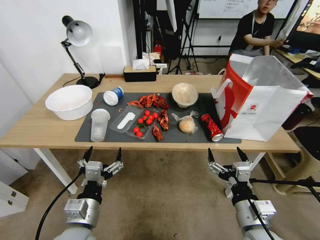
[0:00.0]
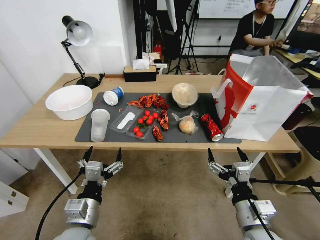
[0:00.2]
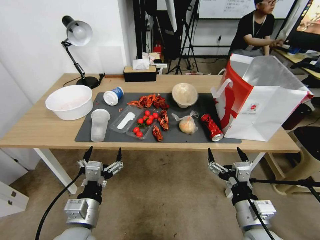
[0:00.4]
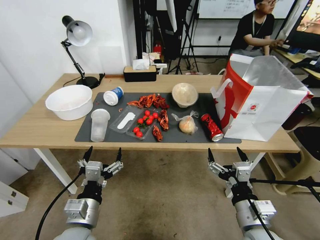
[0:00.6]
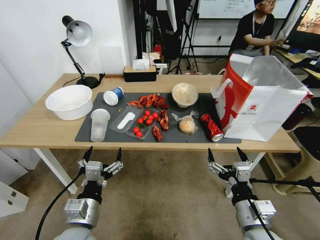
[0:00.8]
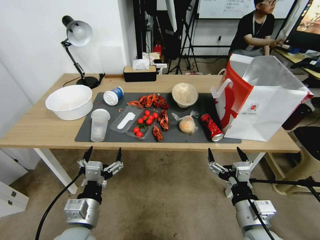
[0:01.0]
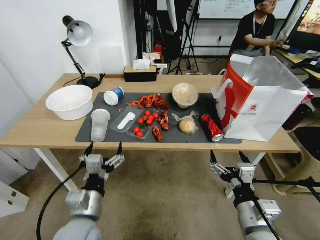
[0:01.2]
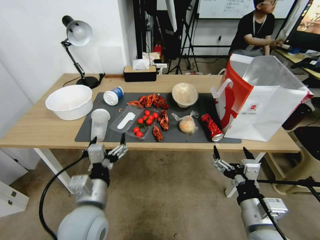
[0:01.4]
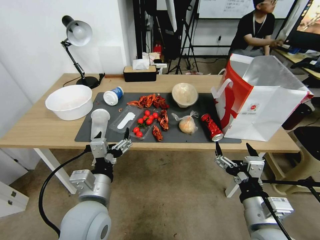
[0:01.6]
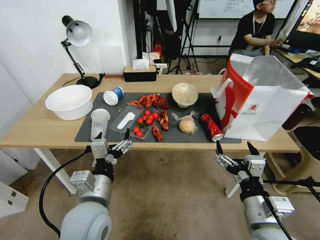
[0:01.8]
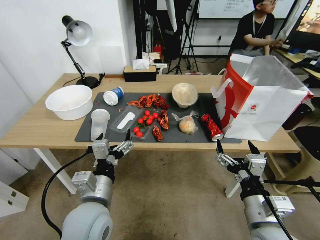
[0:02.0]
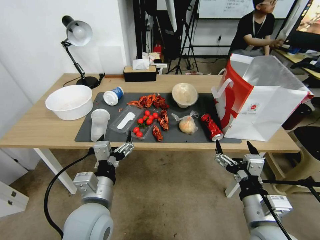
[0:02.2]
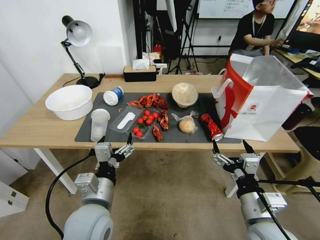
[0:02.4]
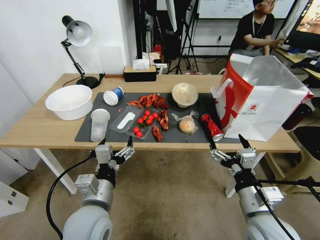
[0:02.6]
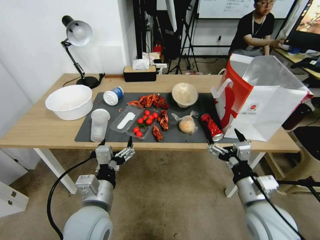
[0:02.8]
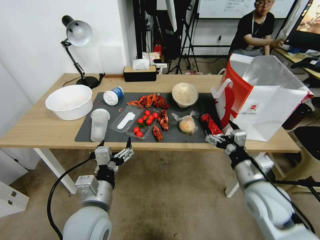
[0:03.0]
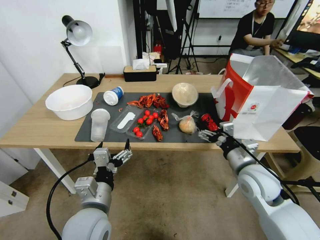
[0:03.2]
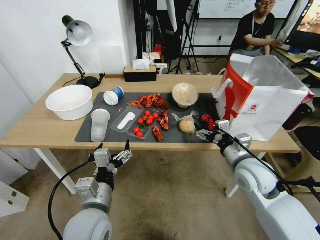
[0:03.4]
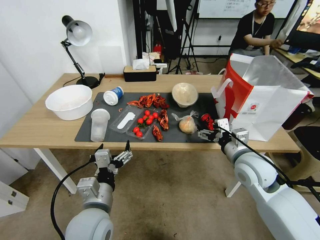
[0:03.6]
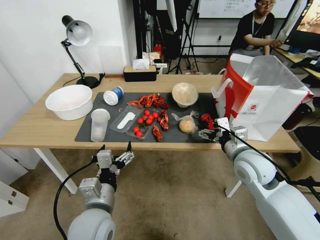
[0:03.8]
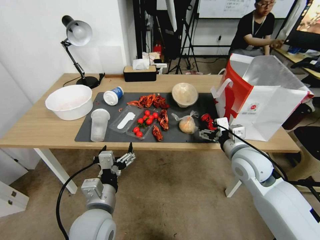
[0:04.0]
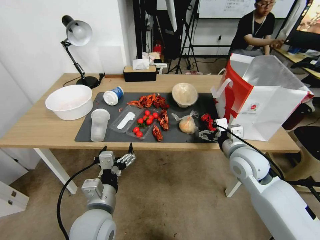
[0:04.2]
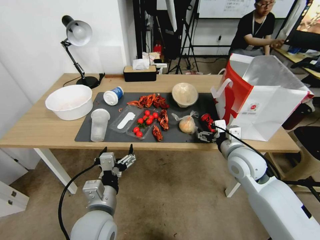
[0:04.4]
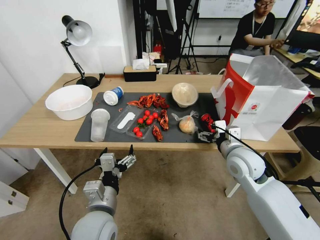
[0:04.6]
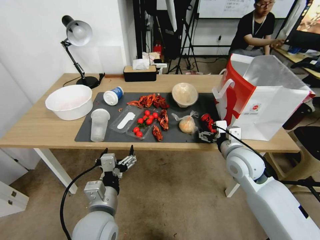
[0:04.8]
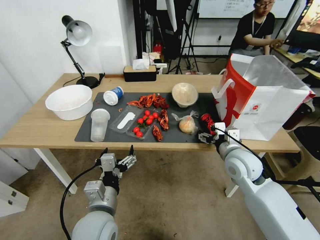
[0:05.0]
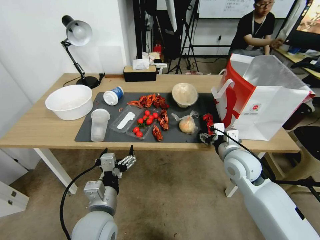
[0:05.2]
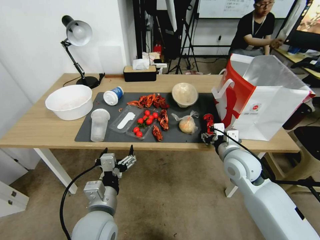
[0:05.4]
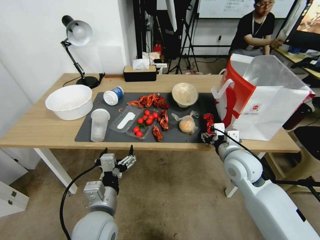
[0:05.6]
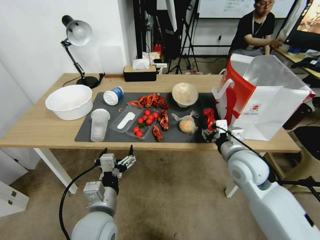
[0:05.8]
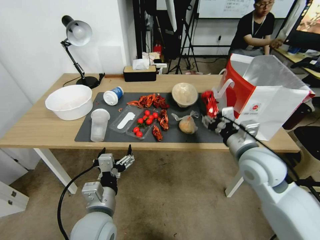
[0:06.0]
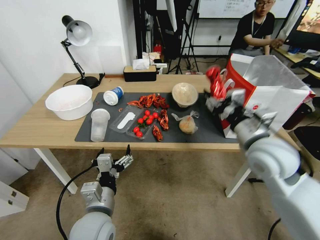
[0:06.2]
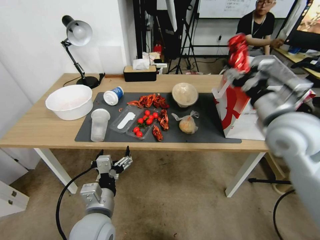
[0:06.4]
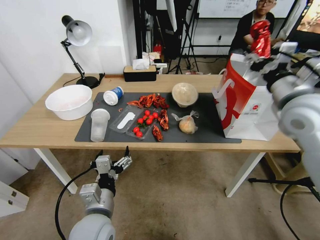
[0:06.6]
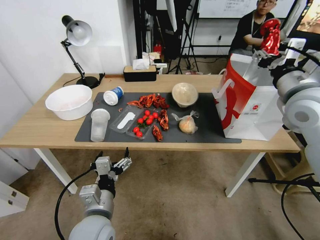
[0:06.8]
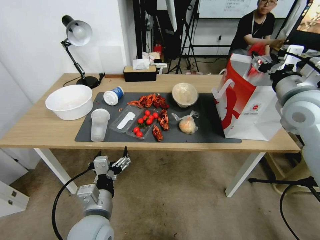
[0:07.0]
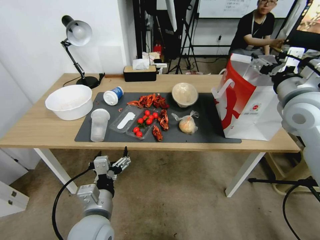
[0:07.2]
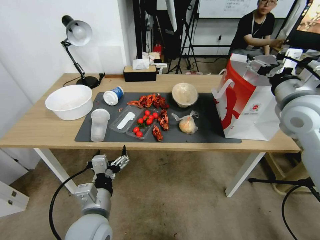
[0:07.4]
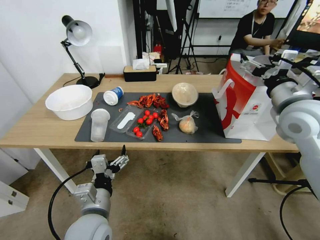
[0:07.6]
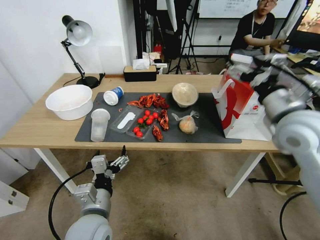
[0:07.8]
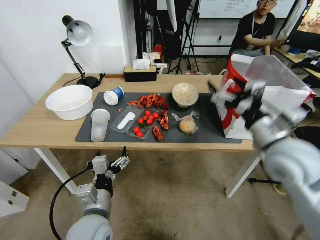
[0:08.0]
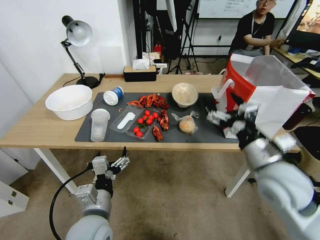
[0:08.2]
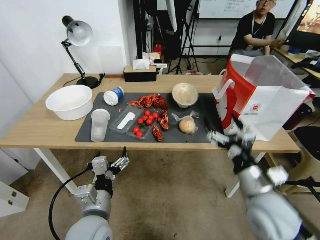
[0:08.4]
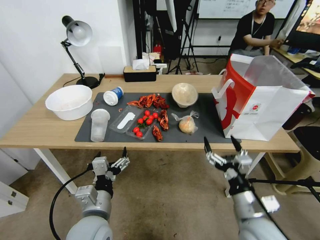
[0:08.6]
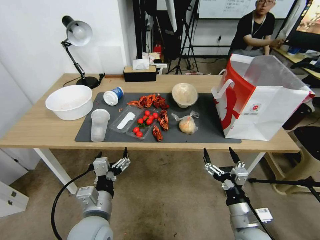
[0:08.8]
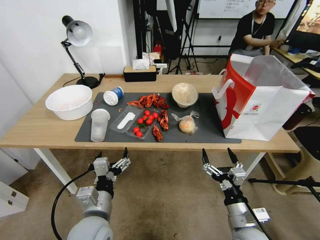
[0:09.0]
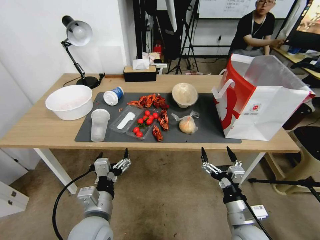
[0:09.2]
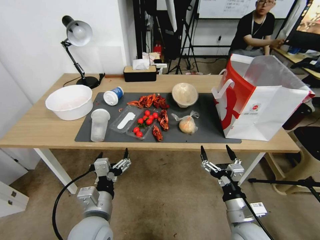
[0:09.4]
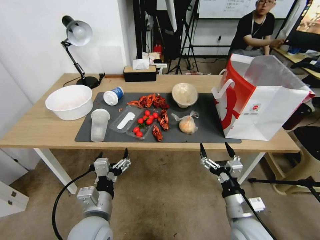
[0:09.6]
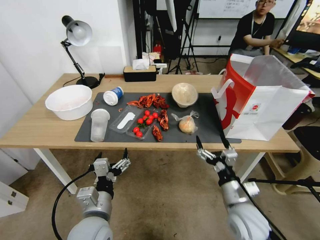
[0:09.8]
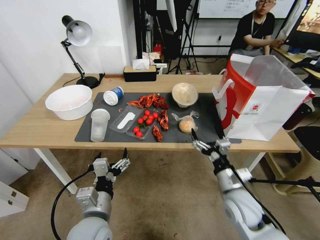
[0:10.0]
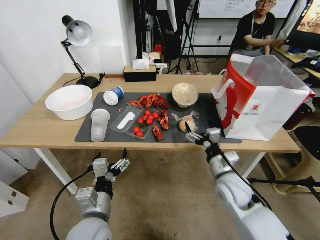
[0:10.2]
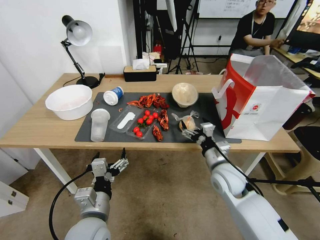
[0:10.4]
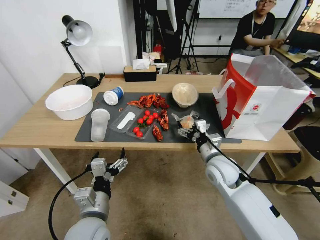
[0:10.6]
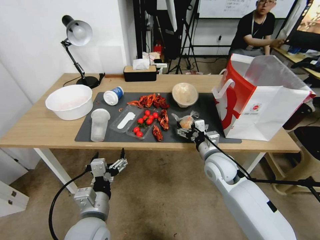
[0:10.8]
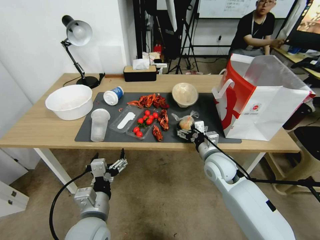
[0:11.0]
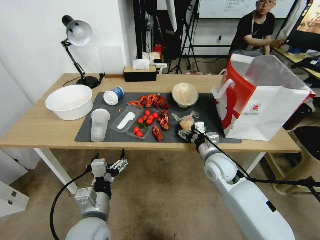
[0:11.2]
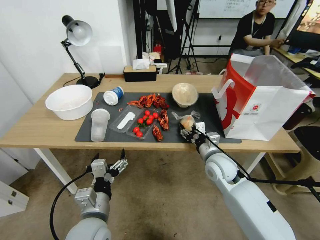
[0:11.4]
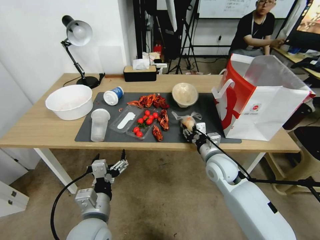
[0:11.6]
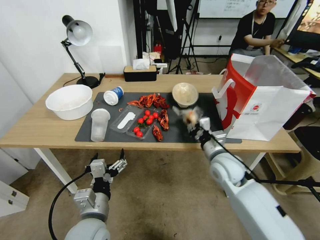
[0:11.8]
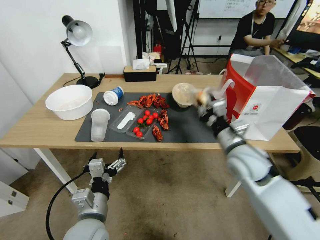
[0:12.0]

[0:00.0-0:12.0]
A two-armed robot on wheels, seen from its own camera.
0:01.6 to 0:03.0: The right gripper shifts some 10 cm forward.
0:03.0 to 0:04.4: The right gripper shifts some 10 cm forward.
0:04.4 to 0:06.0: The right gripper ends up some 5 cm from where it was, and closes up.
0:06.0 to 0:07.6: The right gripper goes roughly 15 cm upward, to the right and forward, and opens its fingers.
0:07.6 to 0:09.0: The right gripper heads downward and backward, covering some 35 cm.
0:09.0 to 0:10.4: The right gripper goes roughly 15 cm forward.
0:10.4 to 0:12.0: The right gripper closes.

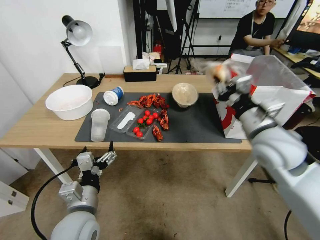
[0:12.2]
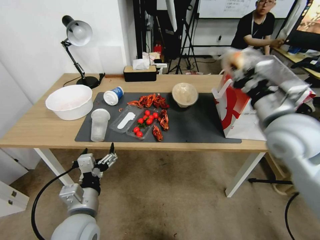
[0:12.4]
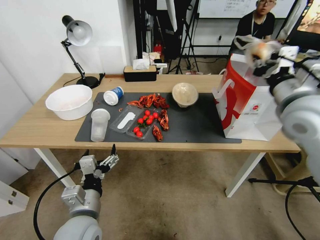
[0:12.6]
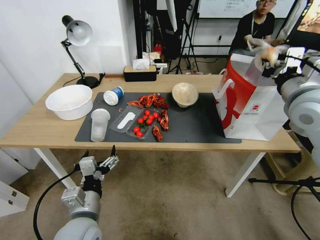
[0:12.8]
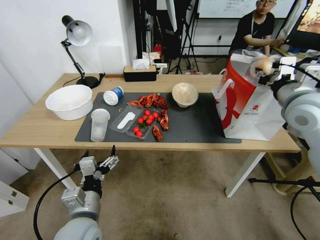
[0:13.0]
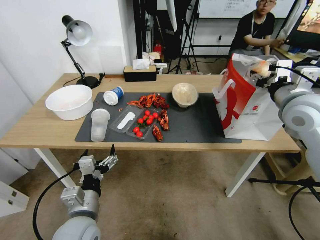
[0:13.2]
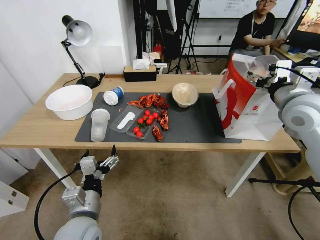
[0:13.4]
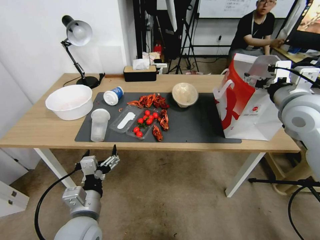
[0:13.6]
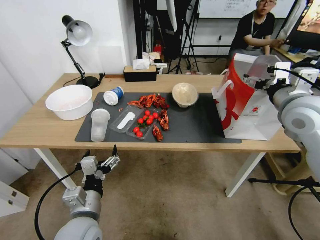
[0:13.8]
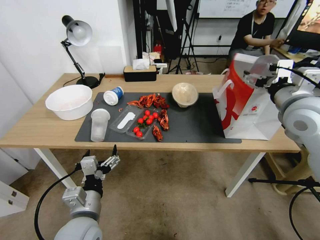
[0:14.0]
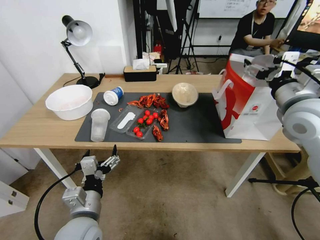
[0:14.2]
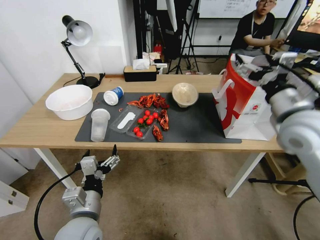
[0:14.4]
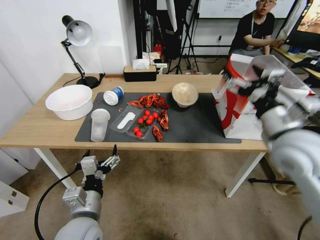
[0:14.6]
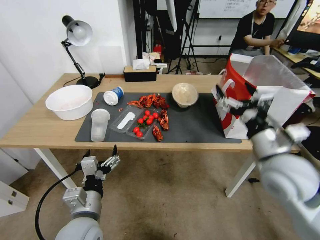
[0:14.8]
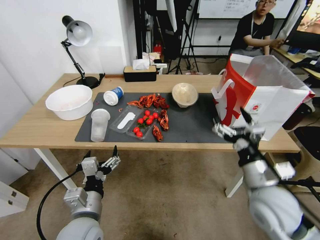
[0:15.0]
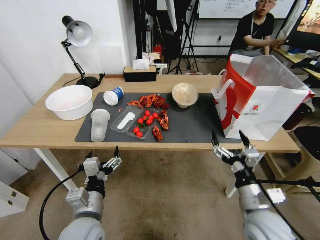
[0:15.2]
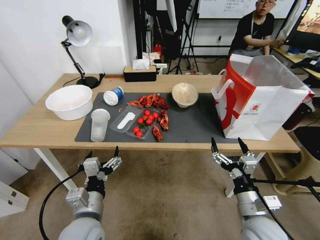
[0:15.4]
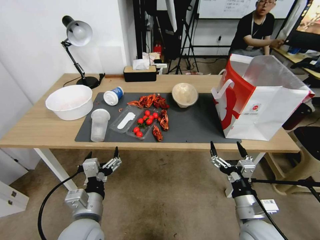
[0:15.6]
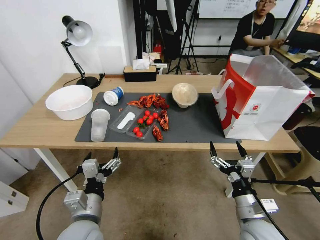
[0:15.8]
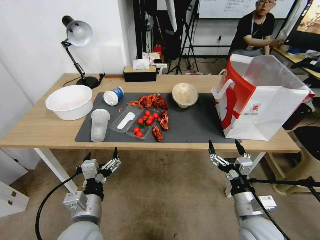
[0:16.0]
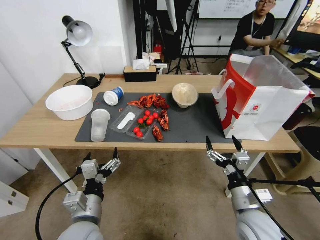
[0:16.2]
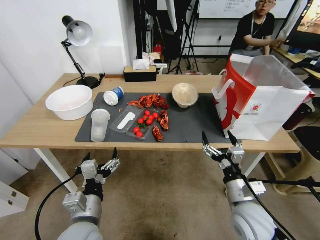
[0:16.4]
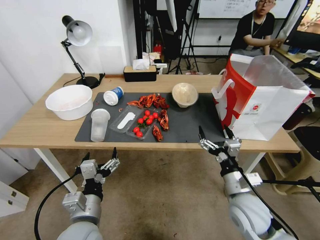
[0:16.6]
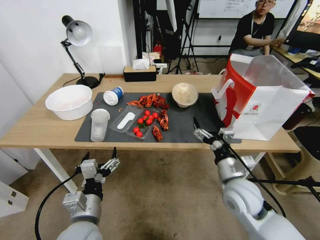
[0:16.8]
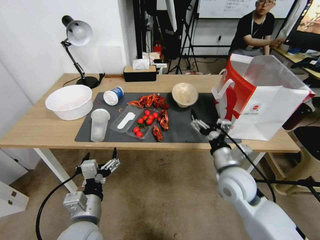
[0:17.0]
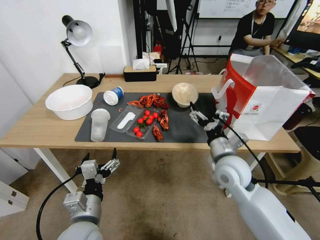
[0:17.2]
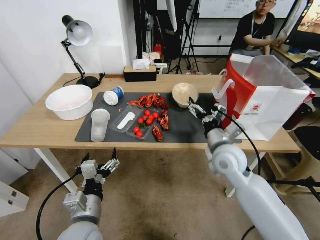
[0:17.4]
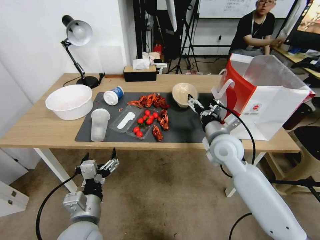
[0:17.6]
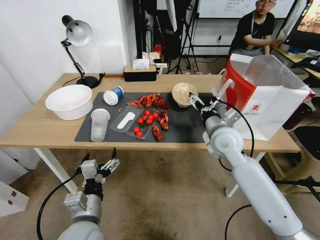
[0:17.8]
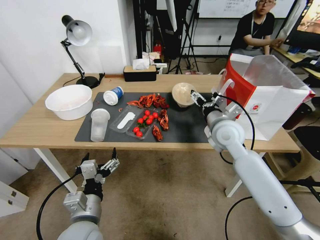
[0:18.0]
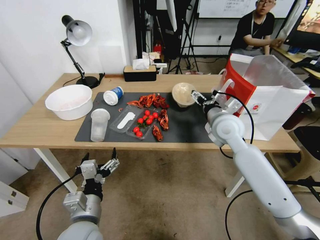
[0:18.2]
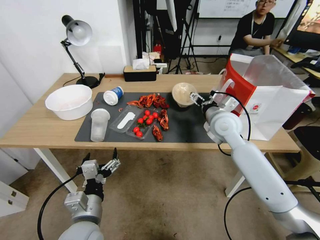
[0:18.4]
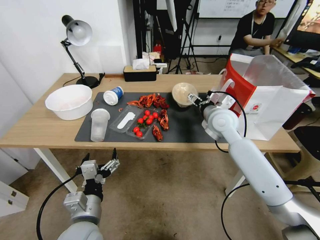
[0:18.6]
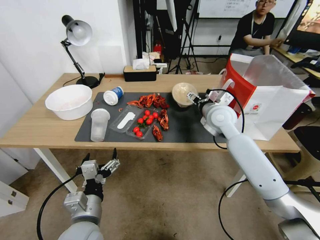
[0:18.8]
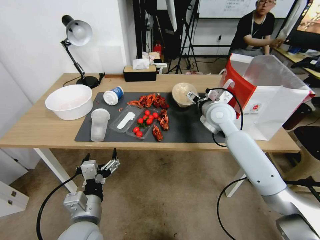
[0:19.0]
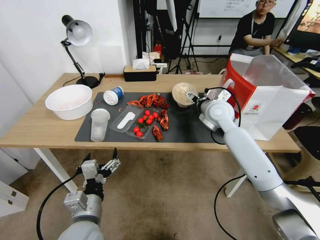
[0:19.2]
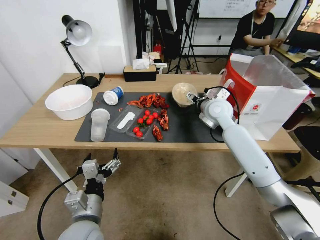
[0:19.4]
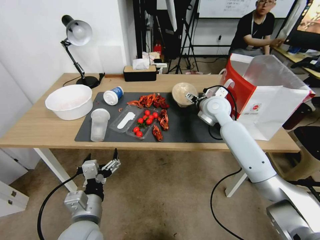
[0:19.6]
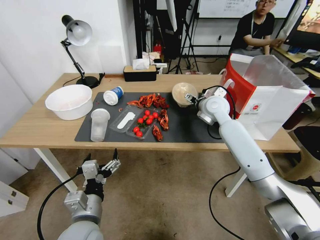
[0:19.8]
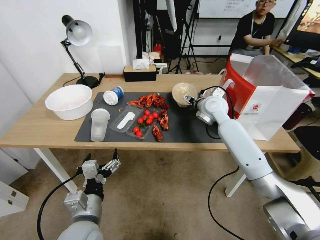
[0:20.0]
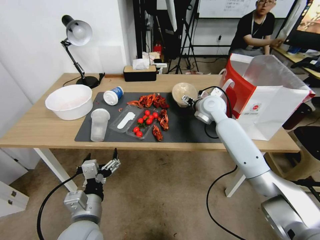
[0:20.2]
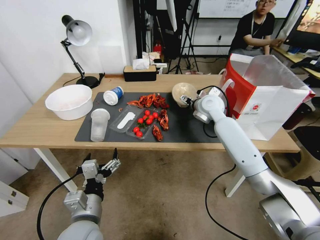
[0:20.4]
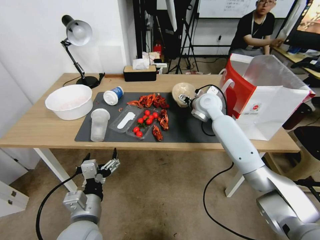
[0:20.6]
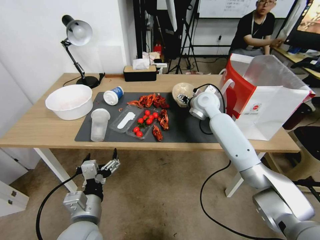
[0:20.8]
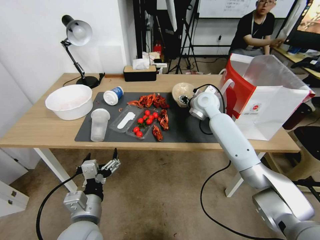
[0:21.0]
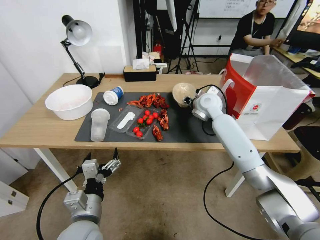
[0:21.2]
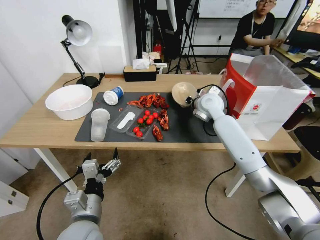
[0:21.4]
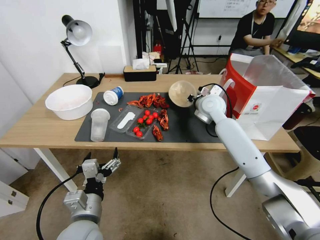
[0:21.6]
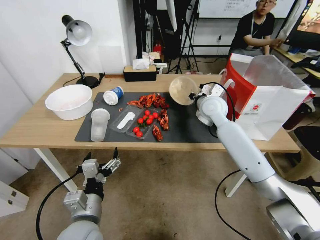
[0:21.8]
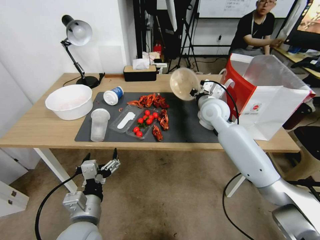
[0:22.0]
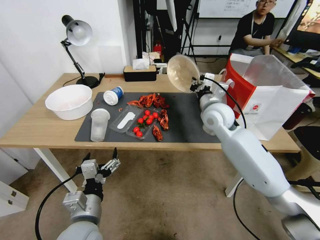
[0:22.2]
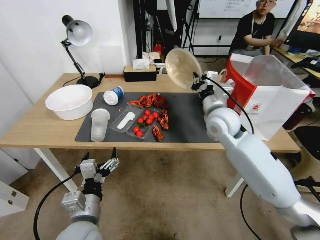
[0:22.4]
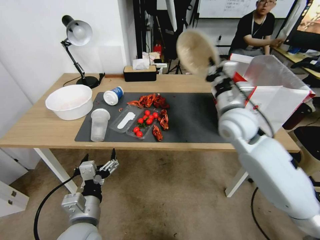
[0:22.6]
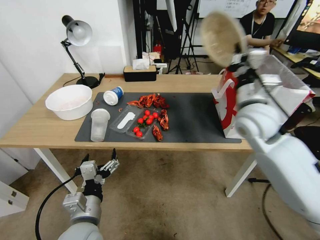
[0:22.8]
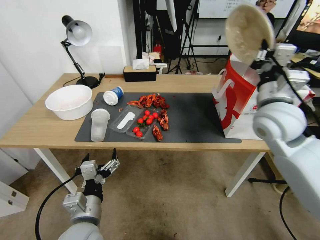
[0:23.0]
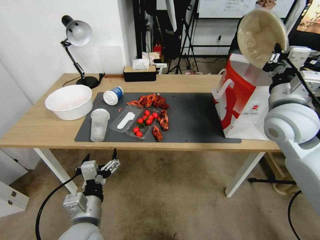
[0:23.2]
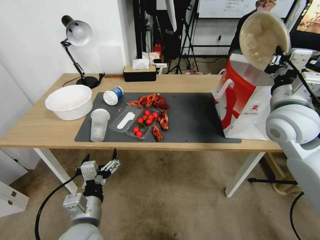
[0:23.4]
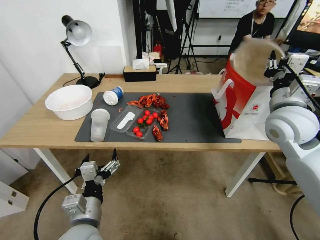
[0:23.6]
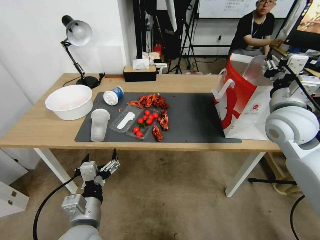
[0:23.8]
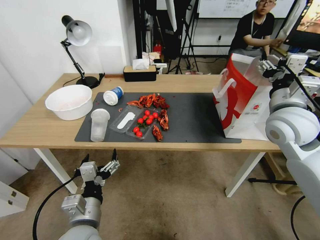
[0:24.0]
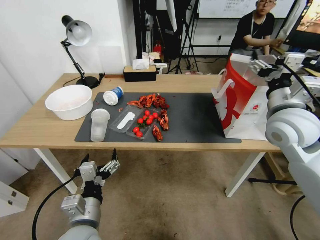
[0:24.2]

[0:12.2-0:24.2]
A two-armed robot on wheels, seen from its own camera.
0:12.2 to 0:13.8: The right gripper travels upward and to the right by roughly 15 cm, and opens its fingers.
0:13.8 to 0:15.2: The right gripper moves downward and backward, approximately 30 cm.
0:15.2 to 0:16.6: The right gripper ends up approximately 5 cm from where it was.
0:16.6 to 0:18.2: The right gripper is displaced forward and upward by some 20 cm.
0:18.2 to 0:19.8: The right gripper heads forward, covering approximately 10 cm.
0:19.8 to 0:21.2: The right gripper closes up.
0:21.2 to 0:22.6: The right gripper shifts some 15 cm backward, and closes its fingers.
0:22.6 to 0:24.2: The right gripper goes roughly 10 cm to the right, and opens.
